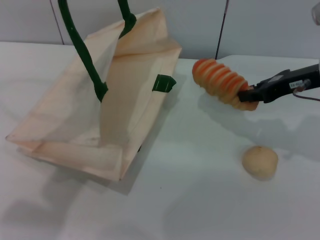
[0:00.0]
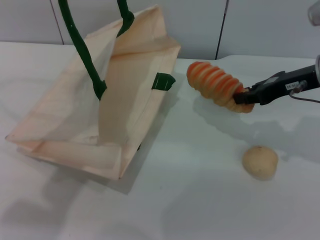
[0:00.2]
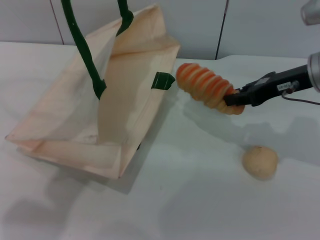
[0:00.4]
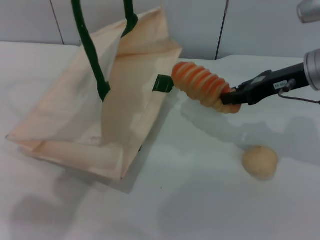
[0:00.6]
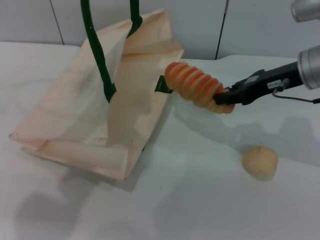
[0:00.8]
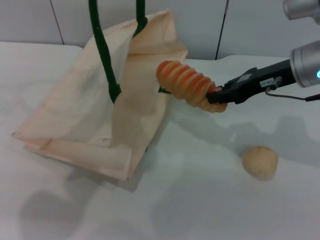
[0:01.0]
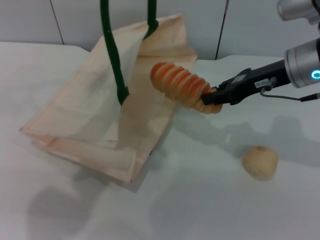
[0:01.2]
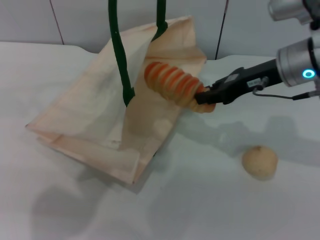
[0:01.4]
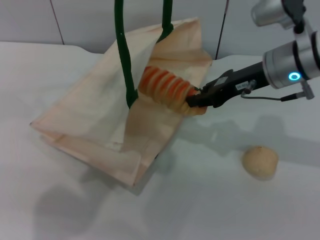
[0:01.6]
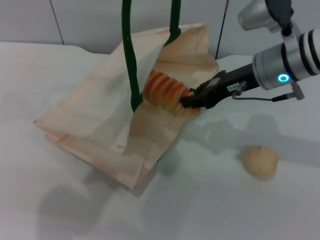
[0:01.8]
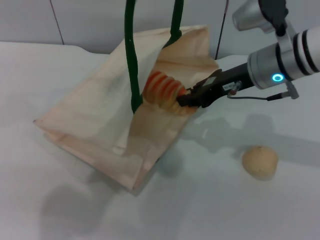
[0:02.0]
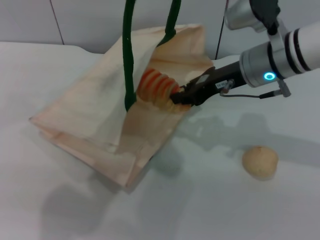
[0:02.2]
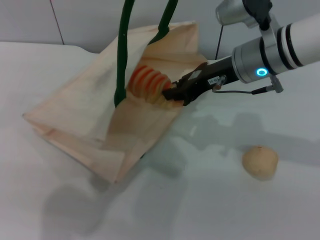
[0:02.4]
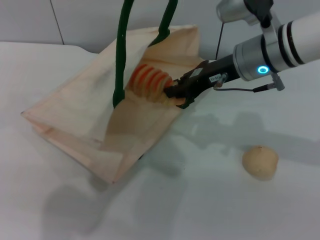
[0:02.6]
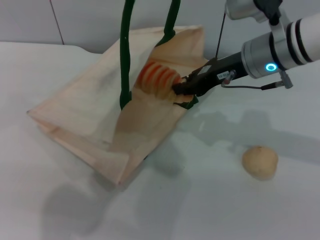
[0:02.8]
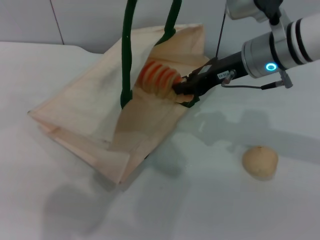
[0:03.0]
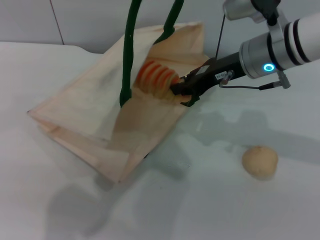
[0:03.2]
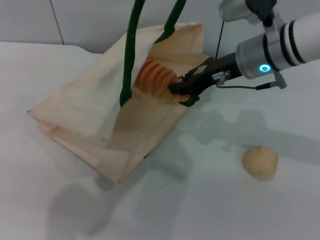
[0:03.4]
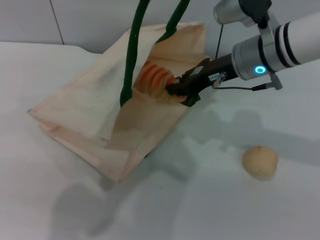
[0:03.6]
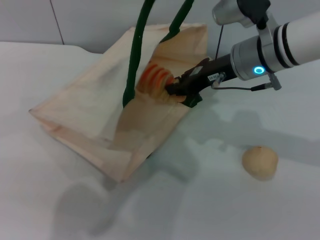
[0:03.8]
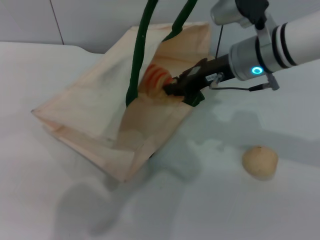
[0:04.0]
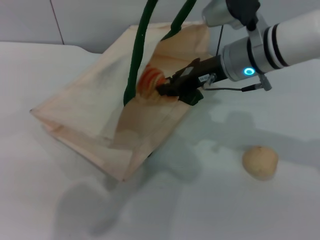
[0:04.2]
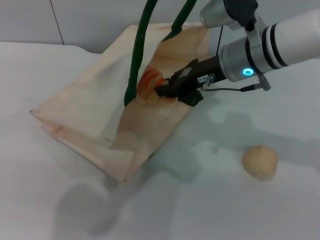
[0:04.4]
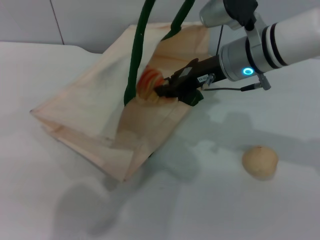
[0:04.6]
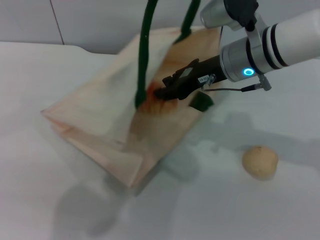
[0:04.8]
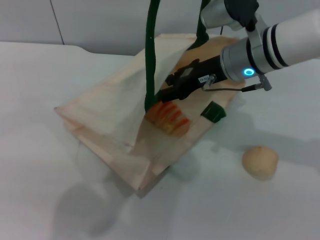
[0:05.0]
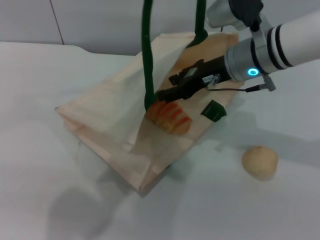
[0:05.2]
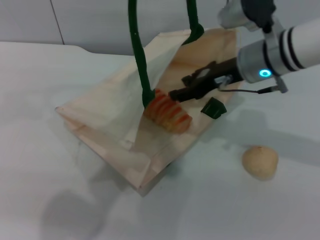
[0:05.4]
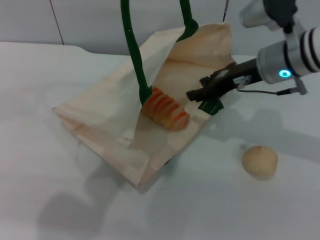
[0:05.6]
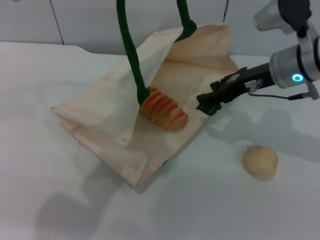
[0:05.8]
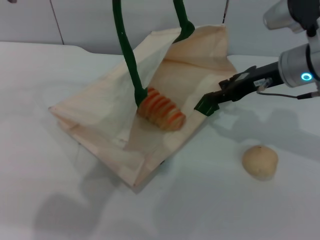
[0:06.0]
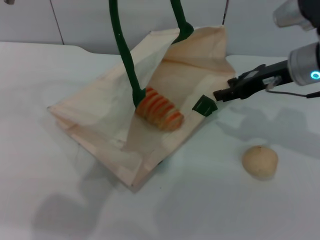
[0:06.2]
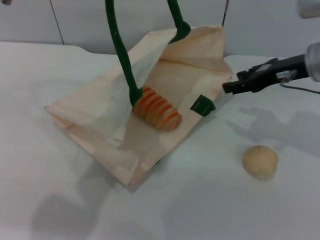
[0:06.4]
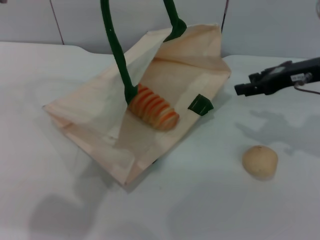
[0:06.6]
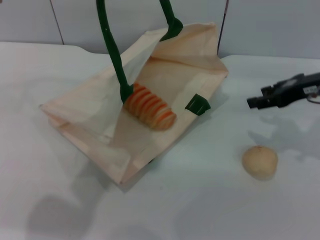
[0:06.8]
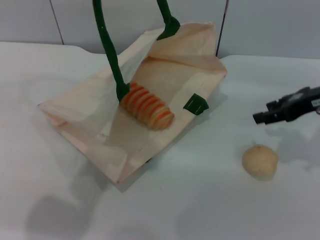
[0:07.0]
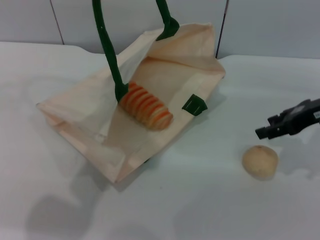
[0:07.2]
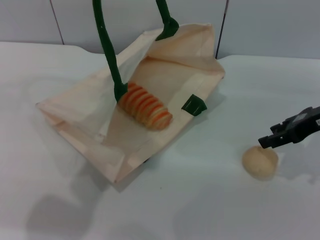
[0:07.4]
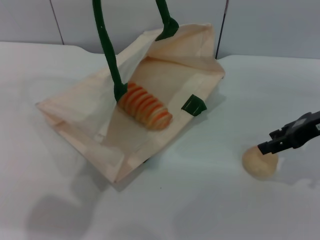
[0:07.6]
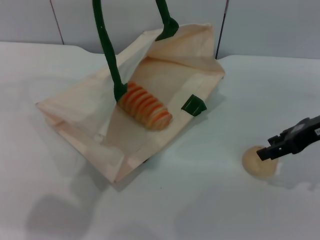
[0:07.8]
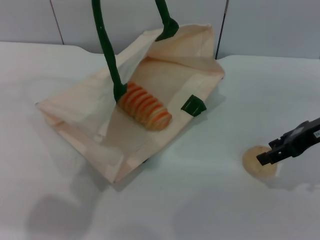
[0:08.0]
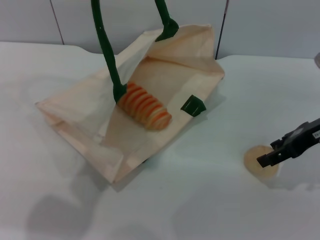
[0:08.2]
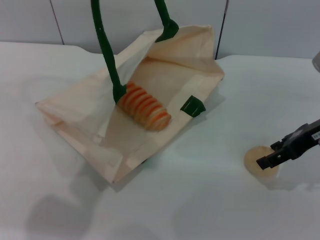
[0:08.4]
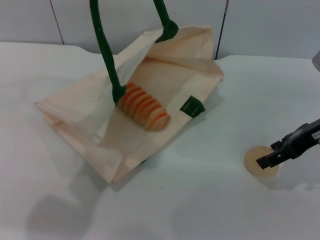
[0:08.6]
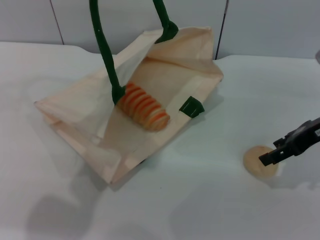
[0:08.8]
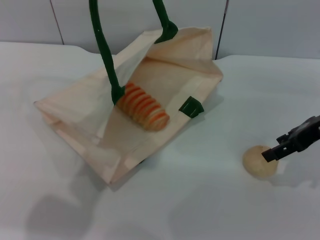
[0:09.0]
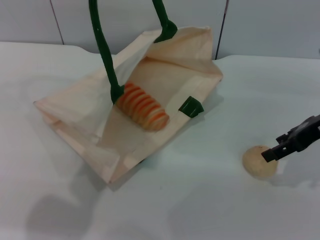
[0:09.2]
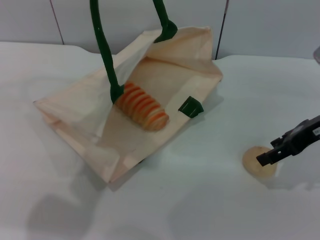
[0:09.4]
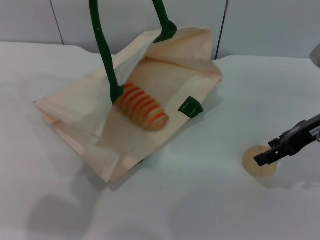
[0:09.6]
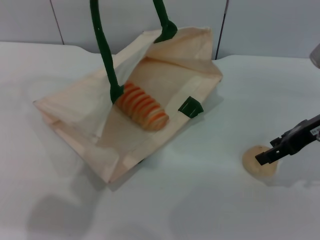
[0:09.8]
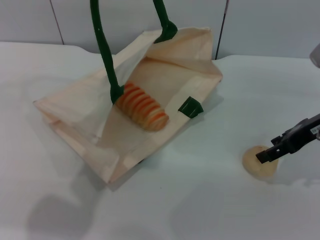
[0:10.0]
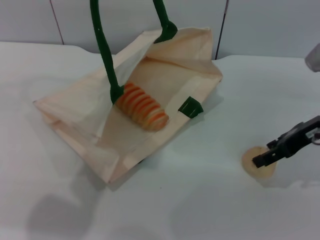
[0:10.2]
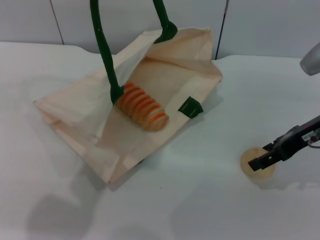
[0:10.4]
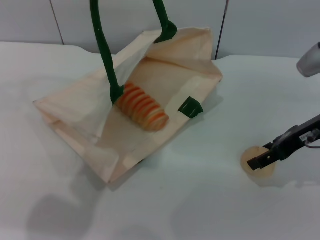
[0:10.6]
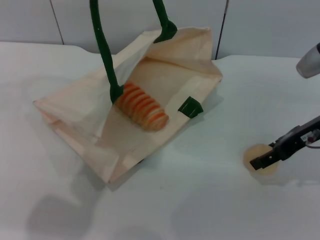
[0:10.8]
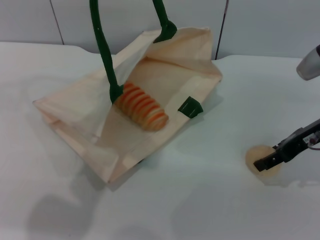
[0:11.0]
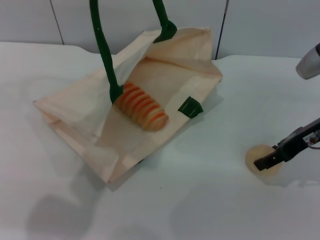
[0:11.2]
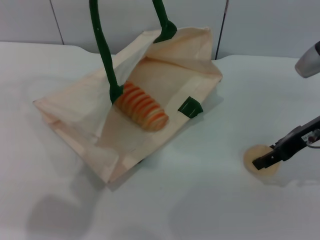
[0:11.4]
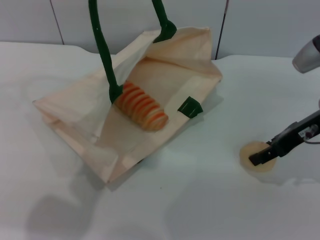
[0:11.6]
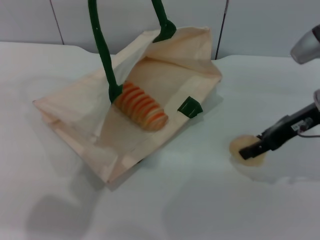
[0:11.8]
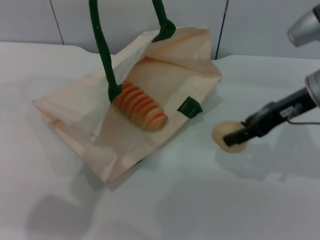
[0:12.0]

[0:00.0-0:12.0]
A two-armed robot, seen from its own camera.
Task of the whole recording: pick up the bread and egg yolk pastry from the table and place it in the white handbag.
Step, 0:00.0 to 0:05.2: Place the bread into the woven bag with the right gripper.
Step, 0:05.4 to 0:11.8: Pick up the egg yolk pastry with the right gripper.
0:00.0 to 0:01.6: The left gripper travels to the right by approximately 5 cm. Meanwhile the right gripper is displaced to the left by roughly 10 cm.
0:01.6 to 0:04.4: The grippers move only a little.
0:04.4 to 0:06.0: The right gripper goes some 10 cm to the right, and opens its fingers.
0:06.0 to 0:07.6: The right gripper heads to the right and backward, covering some 10 cm.
0:07.6 to 0:12.0: The grippers make only small movements.

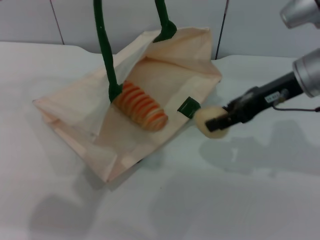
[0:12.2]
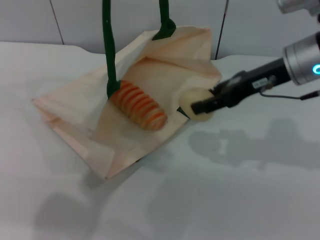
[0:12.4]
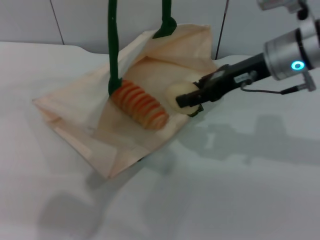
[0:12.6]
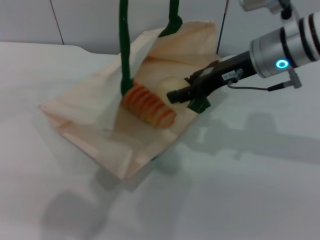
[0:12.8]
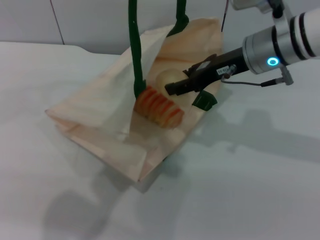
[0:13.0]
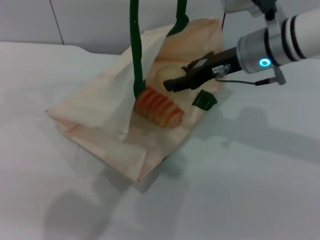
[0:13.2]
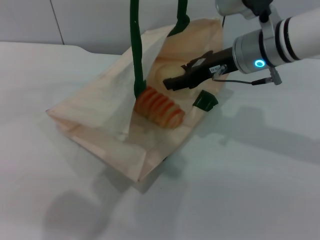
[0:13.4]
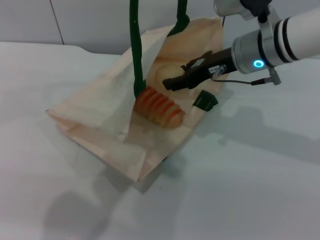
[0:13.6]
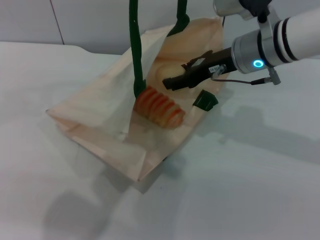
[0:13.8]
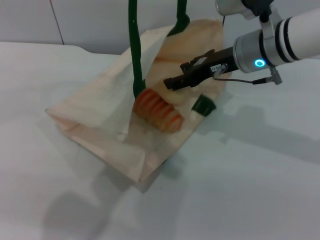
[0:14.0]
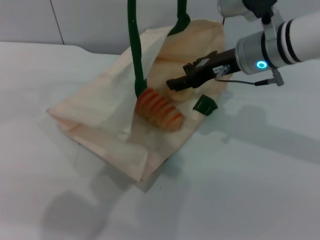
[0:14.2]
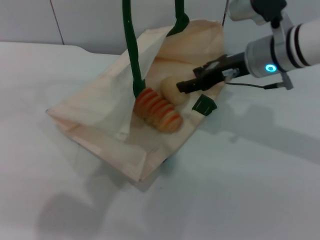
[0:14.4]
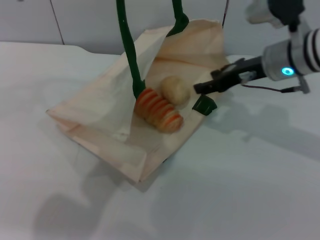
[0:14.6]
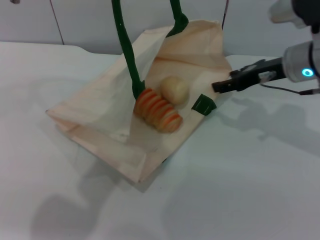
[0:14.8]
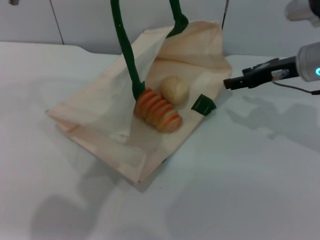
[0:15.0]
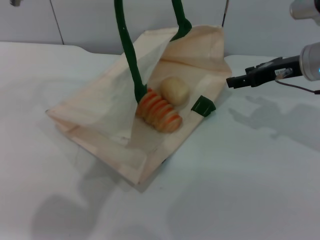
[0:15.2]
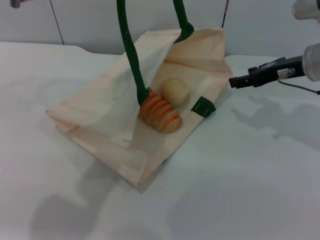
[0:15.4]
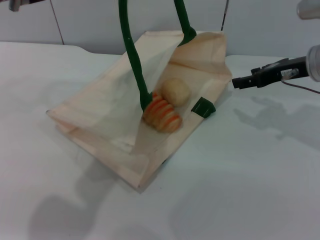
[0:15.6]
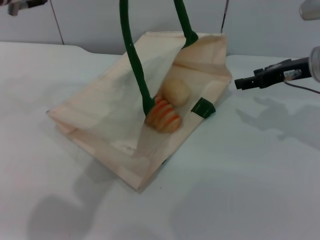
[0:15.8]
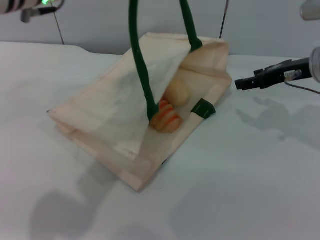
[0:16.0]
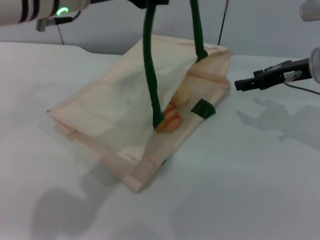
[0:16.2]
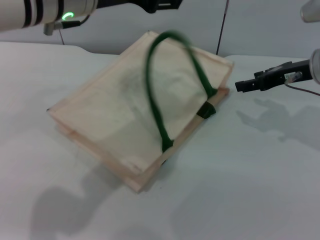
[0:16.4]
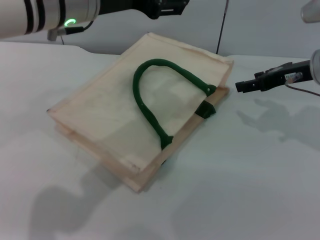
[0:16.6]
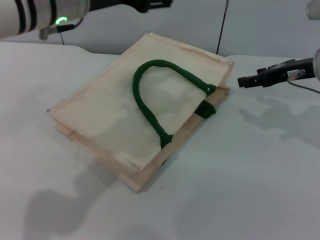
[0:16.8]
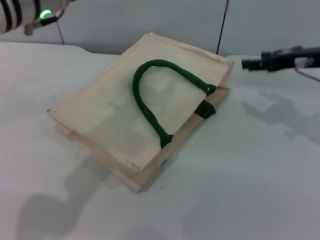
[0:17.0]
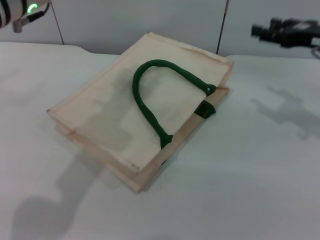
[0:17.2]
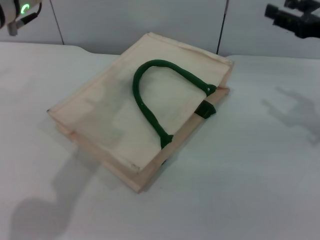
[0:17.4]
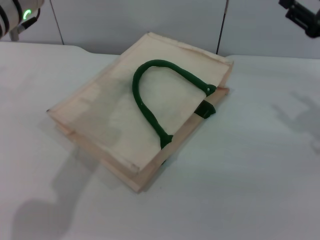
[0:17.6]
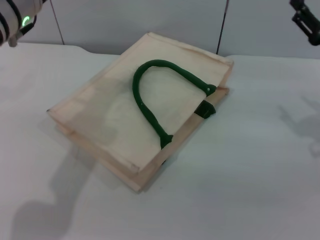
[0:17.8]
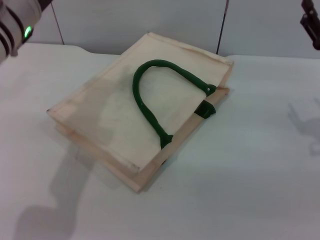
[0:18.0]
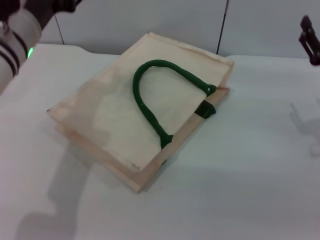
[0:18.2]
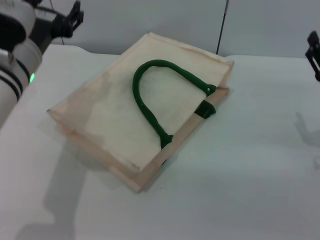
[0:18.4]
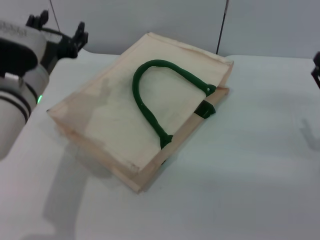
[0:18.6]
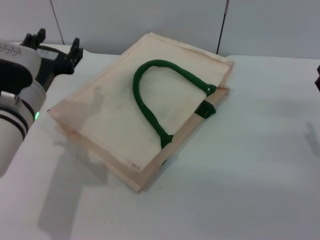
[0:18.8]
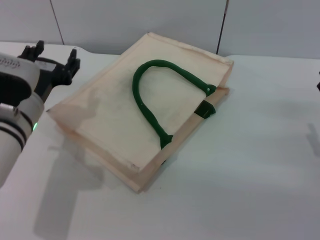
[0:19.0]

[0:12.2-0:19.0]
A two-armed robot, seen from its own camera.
Task of the whole recording: pick up the bread and egg yolk pastry from the table and place it in the white handbag.
Step, 0:12.2 to 0:14.2: Place the egg yolk pastry into the woven bag with the right gripper.
Step, 0:14.4 to 0:16.6: Lower the woven bag with the left gripper to close it.
0:12.2 to 0:13.6: The right gripper heads to the left, covering about 5 cm.
0:13.6 to 0:15.0: The right gripper heads to the right, covering some 10 cm.
0:15.0 to 0:16.2: The left gripper opens its fingers.
0:16.2 to 0:17.6: The left gripper is displaced to the left by some 5 cm. The right gripper is displaced to the right and backward by some 10 cm.
0:17.6 to 0:19.0: Both grippers travel together downward and backward, some 15 cm.

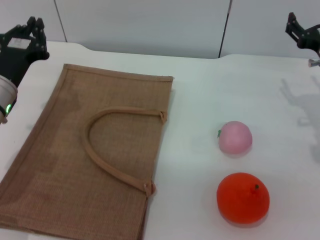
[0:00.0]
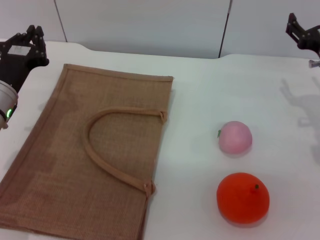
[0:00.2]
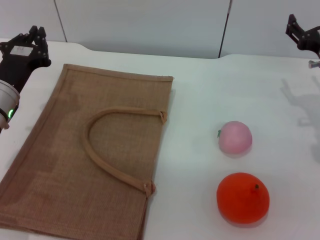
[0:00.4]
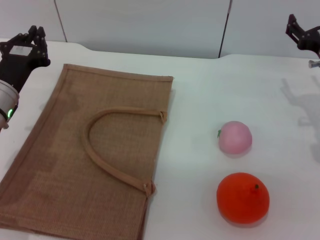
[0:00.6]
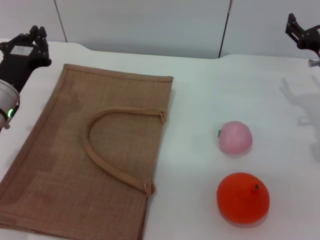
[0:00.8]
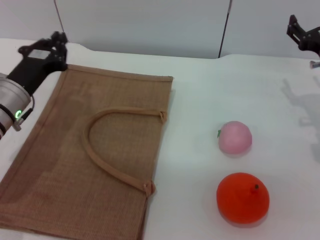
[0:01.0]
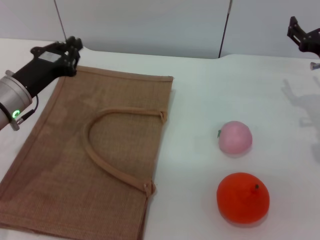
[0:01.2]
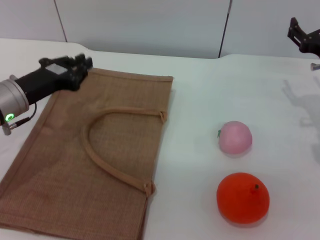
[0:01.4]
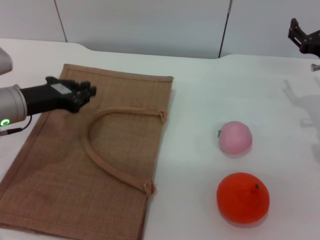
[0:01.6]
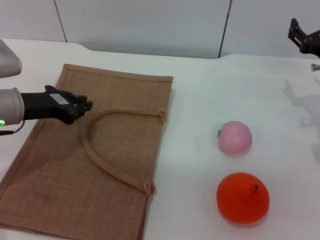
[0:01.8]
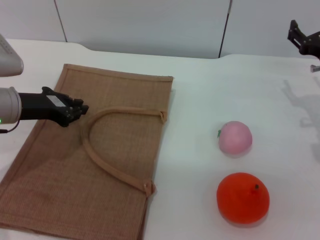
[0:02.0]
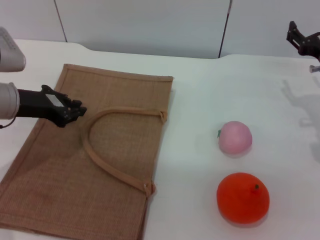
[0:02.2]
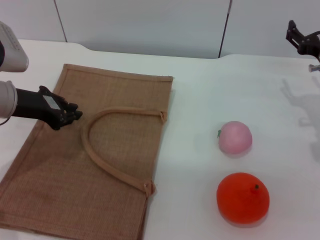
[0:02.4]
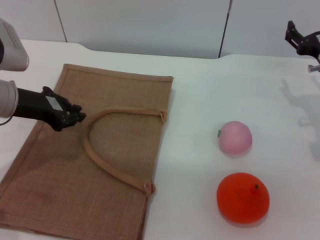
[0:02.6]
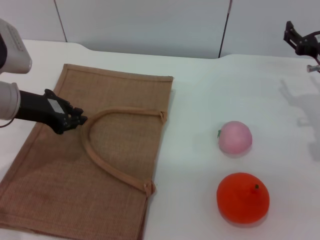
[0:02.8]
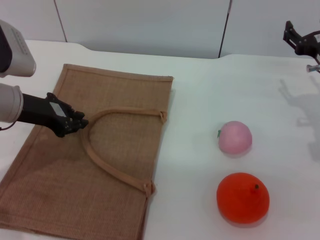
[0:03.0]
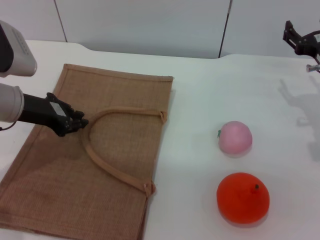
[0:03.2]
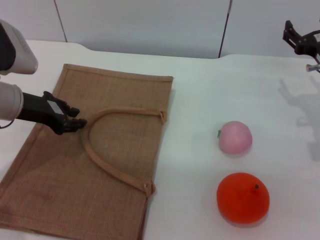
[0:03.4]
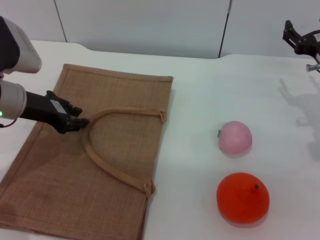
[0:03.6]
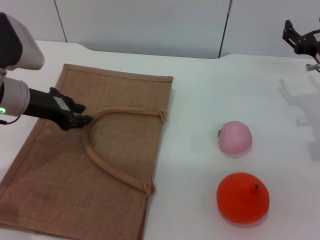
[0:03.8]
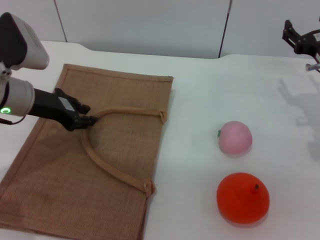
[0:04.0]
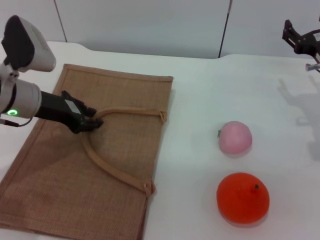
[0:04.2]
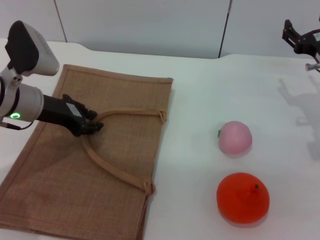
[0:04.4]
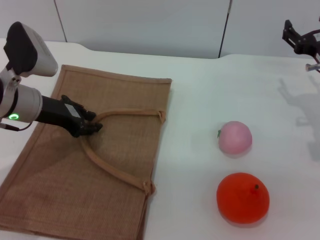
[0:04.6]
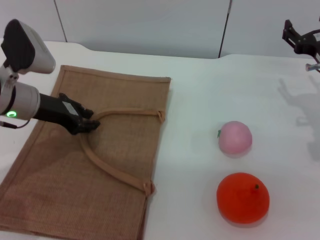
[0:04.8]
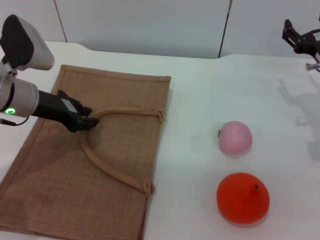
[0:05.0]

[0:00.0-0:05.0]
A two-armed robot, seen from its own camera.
Task of the whole recording: pick up the orange and peach from the table and place it in the brown handbag.
0:03.4 to 0:05.0: The grippers make only small movements.
